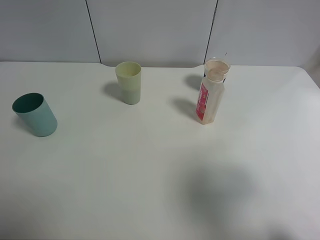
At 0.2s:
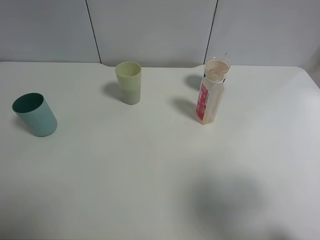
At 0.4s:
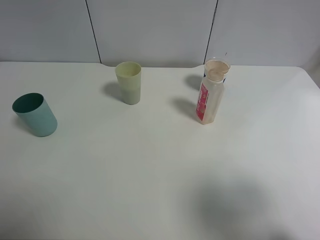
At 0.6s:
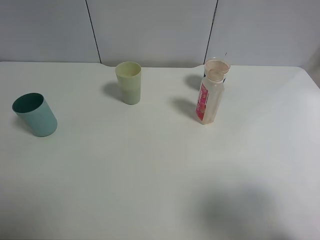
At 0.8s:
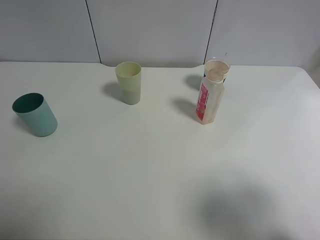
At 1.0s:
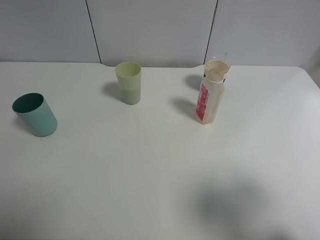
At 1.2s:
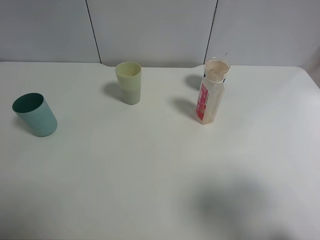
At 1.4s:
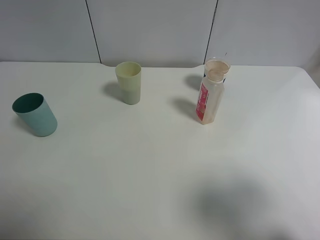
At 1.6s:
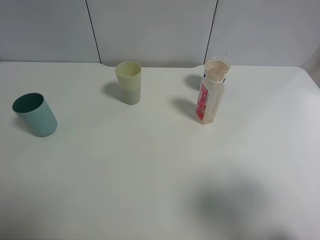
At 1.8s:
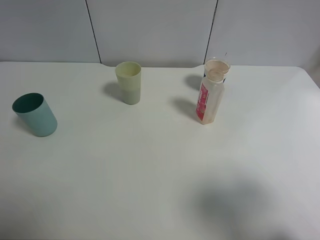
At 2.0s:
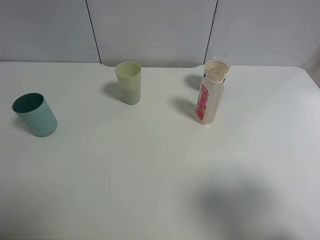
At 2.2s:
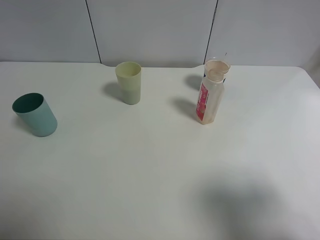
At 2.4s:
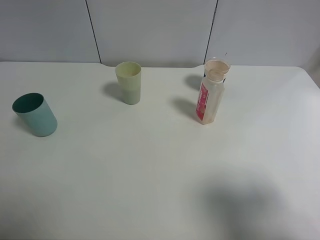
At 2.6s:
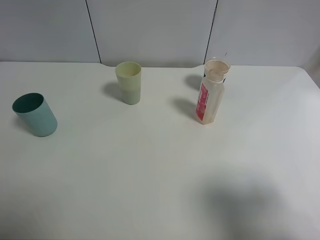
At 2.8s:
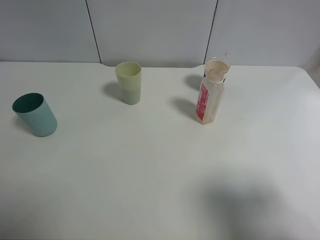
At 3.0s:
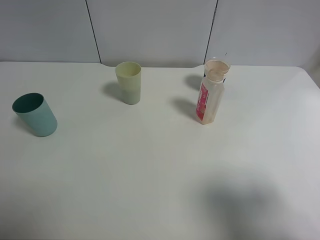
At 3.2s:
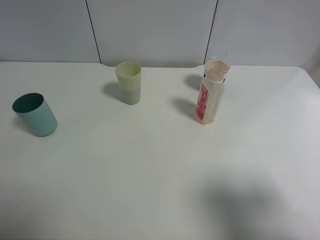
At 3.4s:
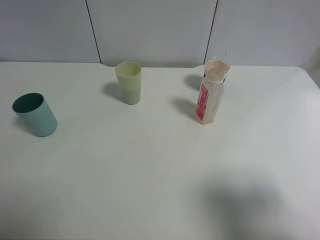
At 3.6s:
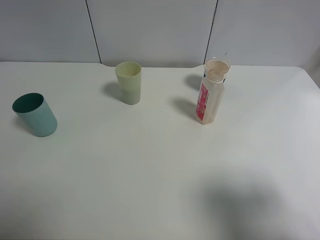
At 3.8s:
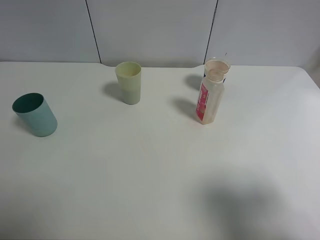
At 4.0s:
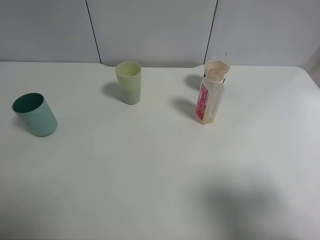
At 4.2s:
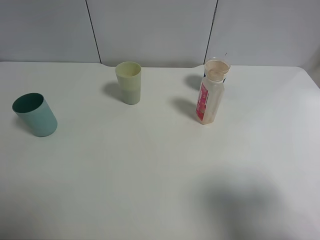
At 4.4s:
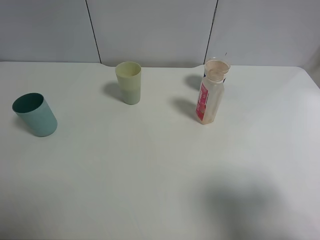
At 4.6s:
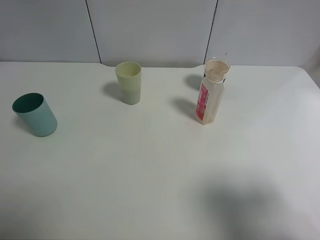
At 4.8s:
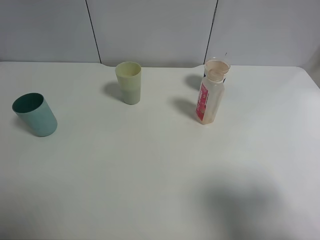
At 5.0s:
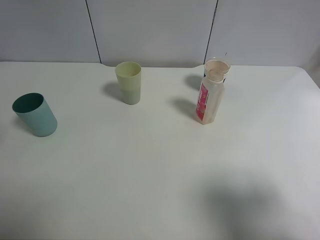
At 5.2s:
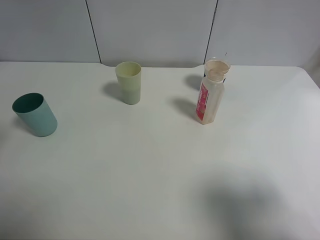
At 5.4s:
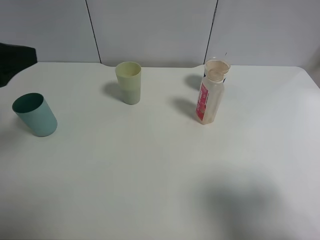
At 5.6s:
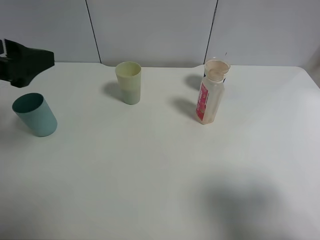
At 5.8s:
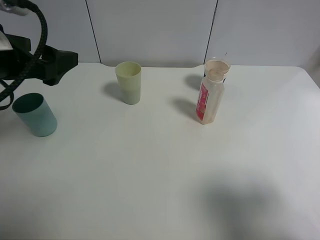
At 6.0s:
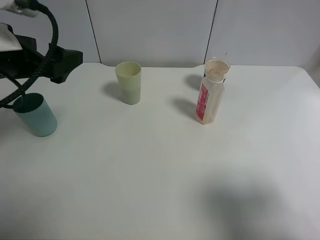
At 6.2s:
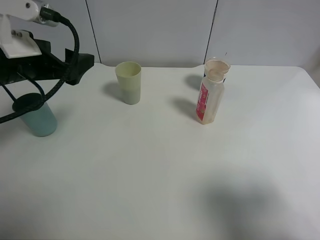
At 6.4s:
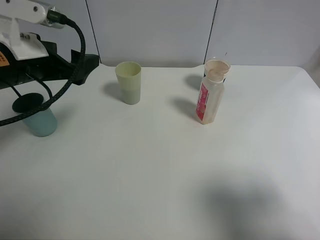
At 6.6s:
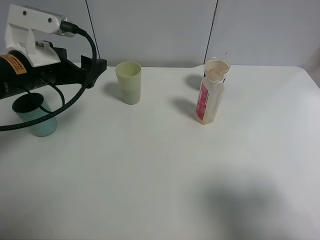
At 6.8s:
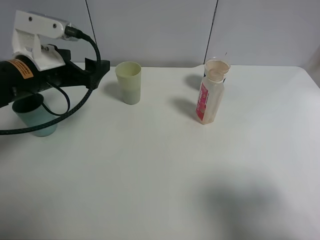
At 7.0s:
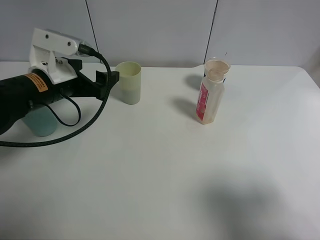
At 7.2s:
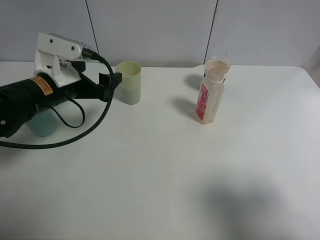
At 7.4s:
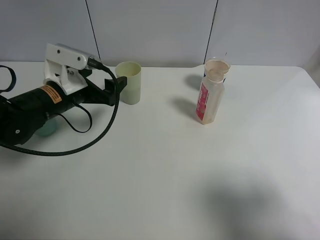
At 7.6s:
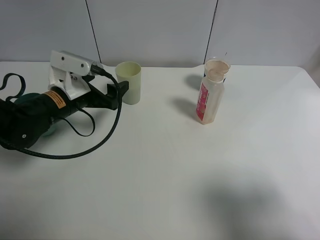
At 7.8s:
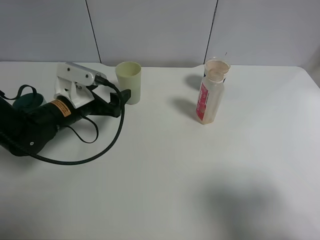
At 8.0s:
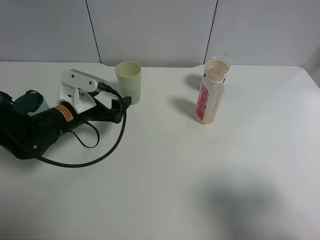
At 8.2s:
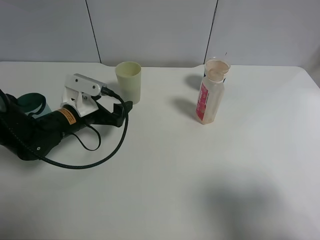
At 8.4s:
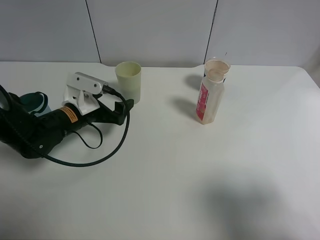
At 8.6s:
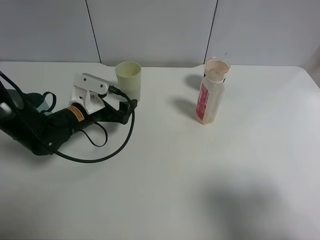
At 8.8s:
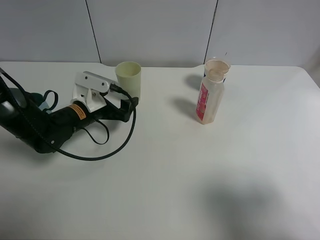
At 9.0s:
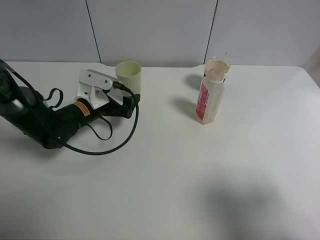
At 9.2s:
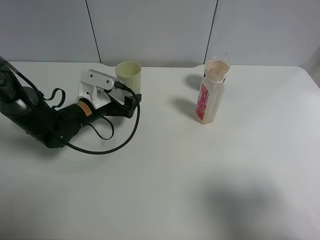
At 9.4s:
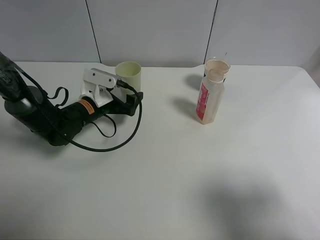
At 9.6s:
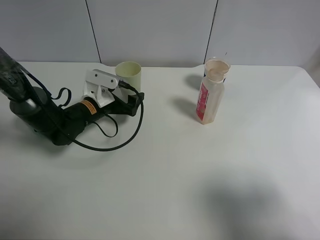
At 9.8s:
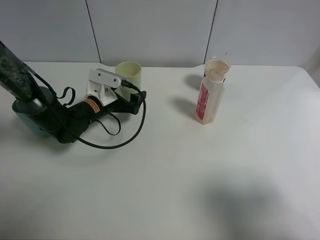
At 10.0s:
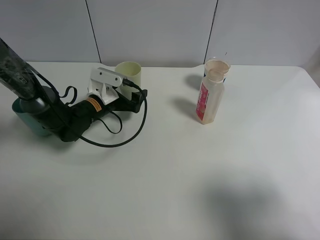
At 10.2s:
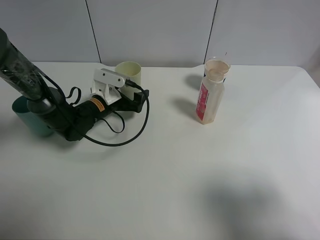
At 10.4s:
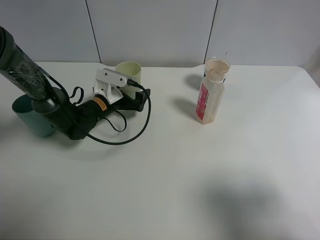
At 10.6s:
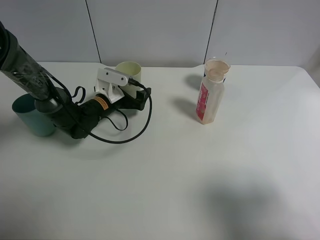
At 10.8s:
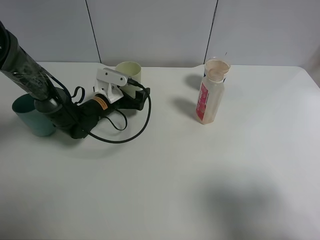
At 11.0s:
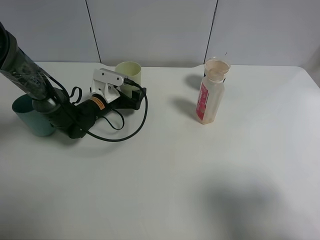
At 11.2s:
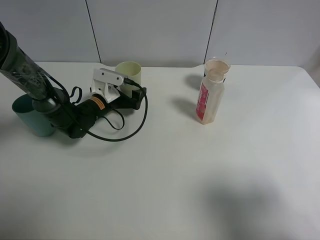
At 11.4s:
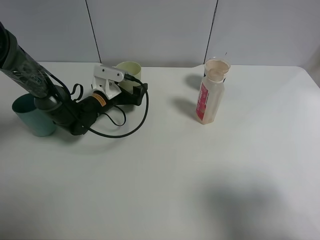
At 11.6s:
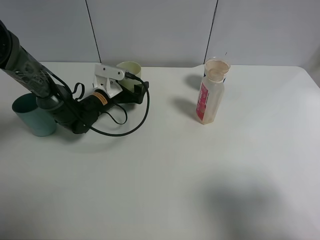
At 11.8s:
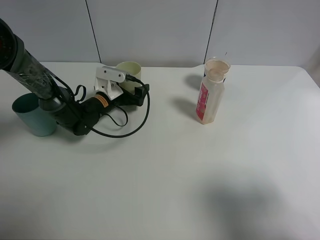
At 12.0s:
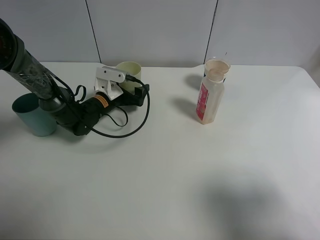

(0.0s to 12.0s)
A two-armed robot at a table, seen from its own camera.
Task of the whole recording: use a clamp to hold the bottle of the drink, pour the beverage into a random cup, then clamp the cup containing the drink and pour the drink into another random cup.
0.0s - 1.6s: The grippers make only small movements.
4.4s - 6.0s: The left gripper travels forward by approximately 20 cm.
6.0s - 7.6s: The left gripper shifts approximately 15 cm downward and forward.
7.6s - 9.0s: The left gripper goes about 5 cm downward.
9.0s - 10.4s: The left gripper ends up some 5 cm from where it was.
10.4s - 12.0s: The grippers make only small movements.

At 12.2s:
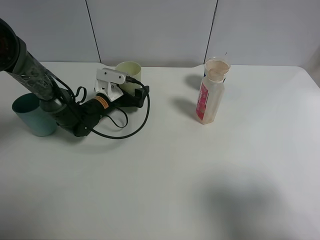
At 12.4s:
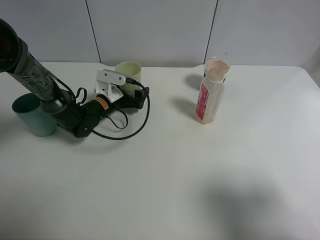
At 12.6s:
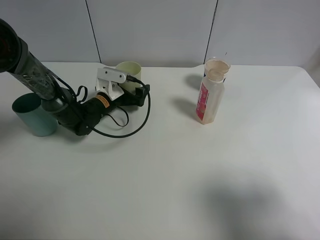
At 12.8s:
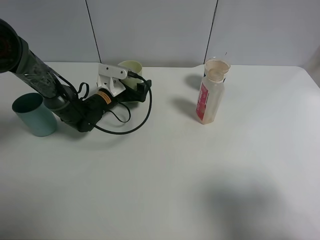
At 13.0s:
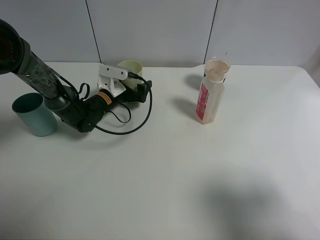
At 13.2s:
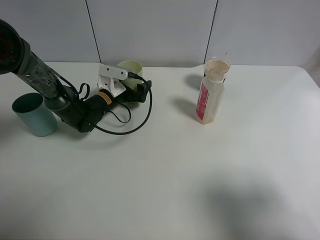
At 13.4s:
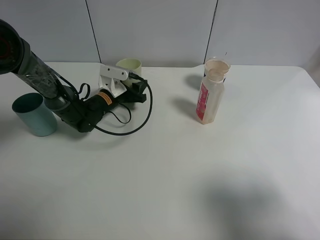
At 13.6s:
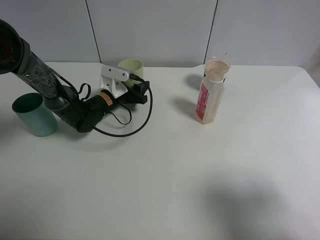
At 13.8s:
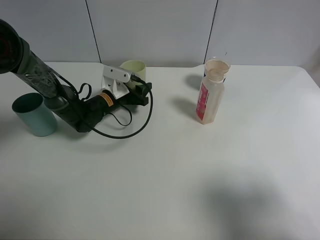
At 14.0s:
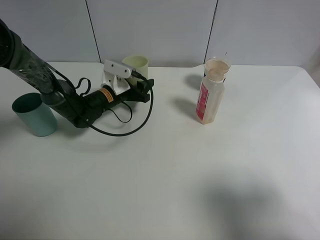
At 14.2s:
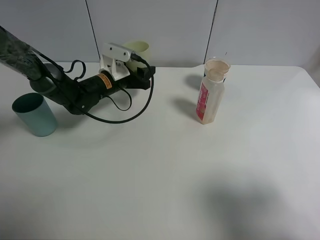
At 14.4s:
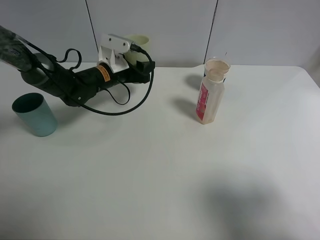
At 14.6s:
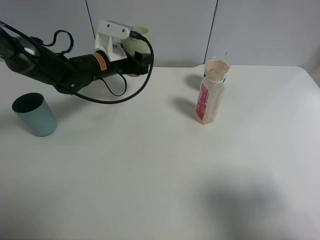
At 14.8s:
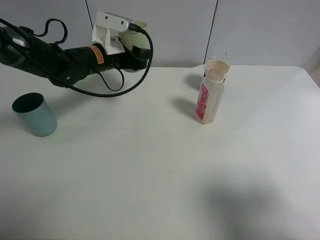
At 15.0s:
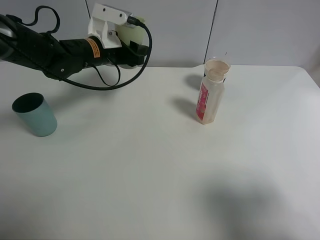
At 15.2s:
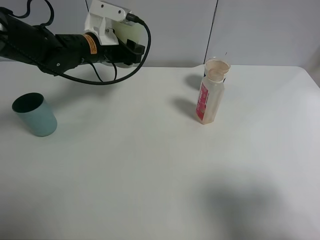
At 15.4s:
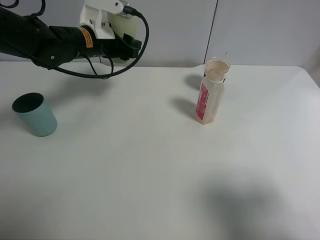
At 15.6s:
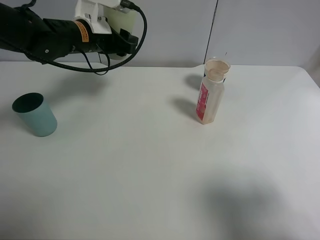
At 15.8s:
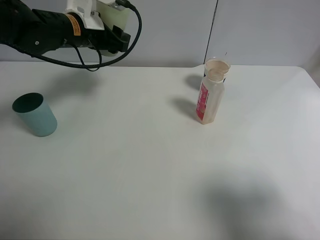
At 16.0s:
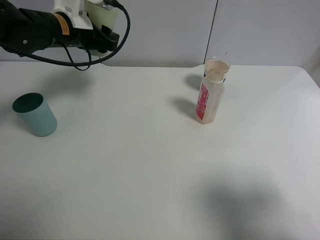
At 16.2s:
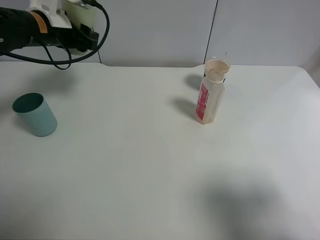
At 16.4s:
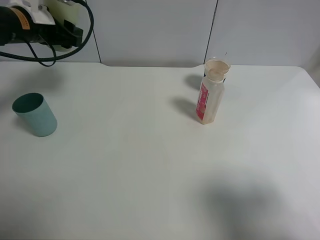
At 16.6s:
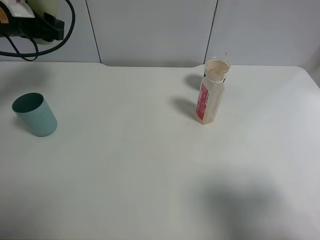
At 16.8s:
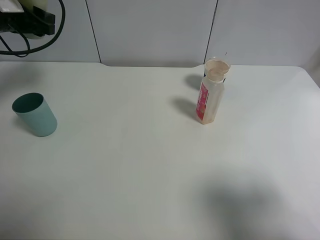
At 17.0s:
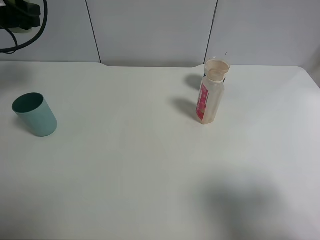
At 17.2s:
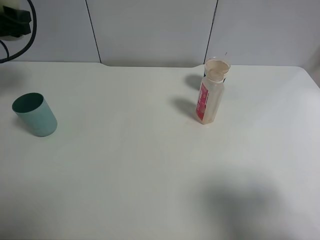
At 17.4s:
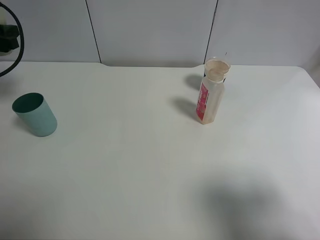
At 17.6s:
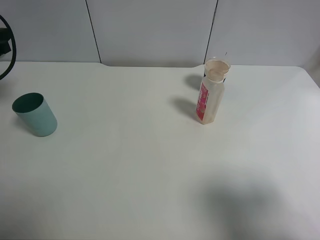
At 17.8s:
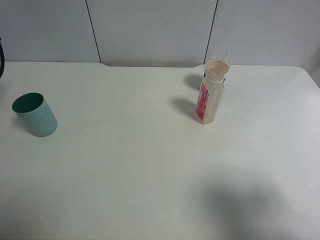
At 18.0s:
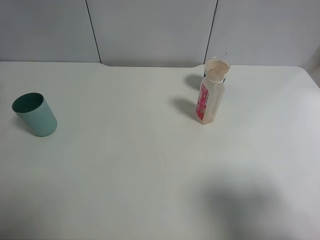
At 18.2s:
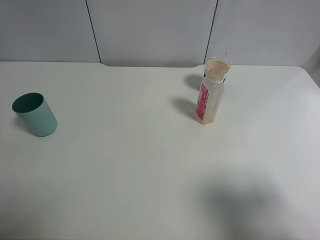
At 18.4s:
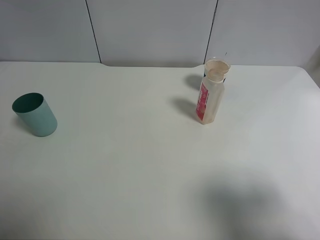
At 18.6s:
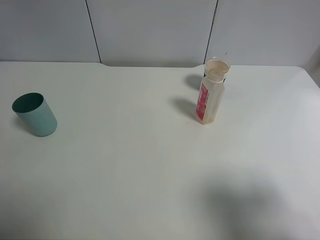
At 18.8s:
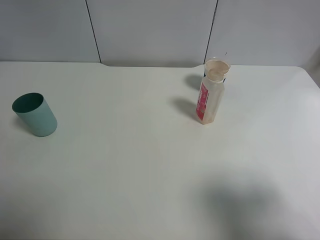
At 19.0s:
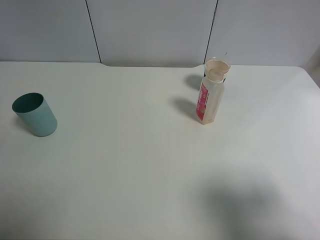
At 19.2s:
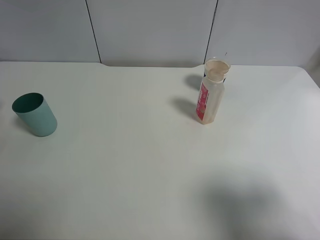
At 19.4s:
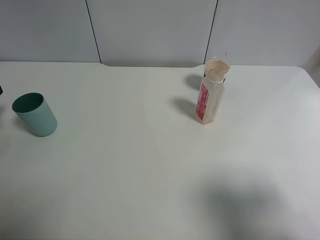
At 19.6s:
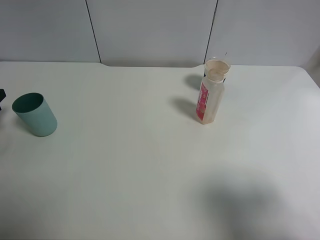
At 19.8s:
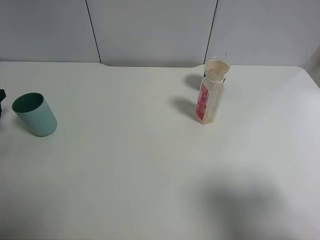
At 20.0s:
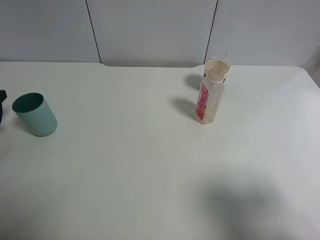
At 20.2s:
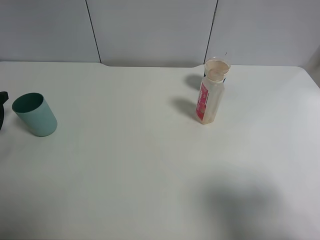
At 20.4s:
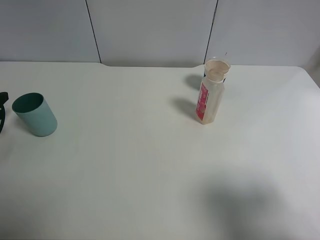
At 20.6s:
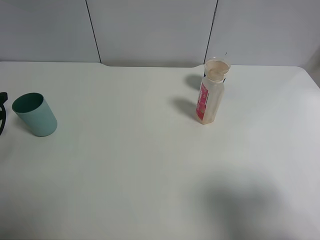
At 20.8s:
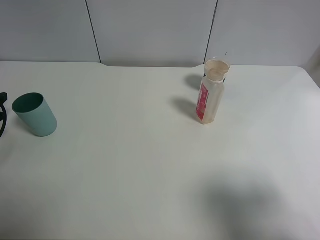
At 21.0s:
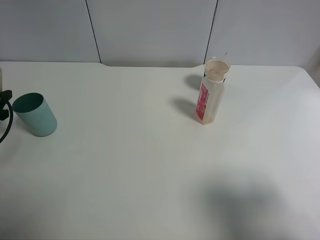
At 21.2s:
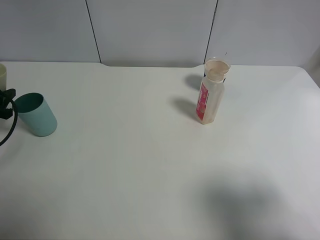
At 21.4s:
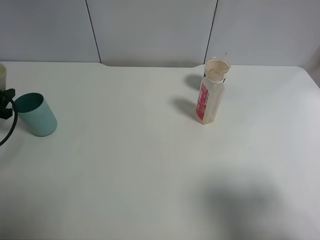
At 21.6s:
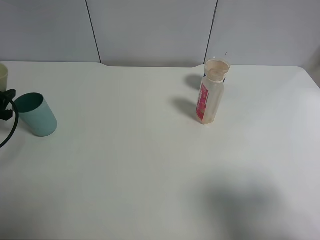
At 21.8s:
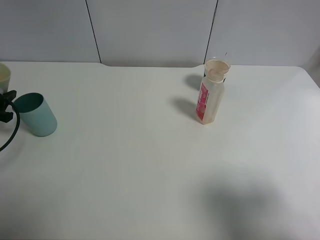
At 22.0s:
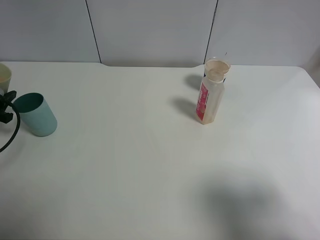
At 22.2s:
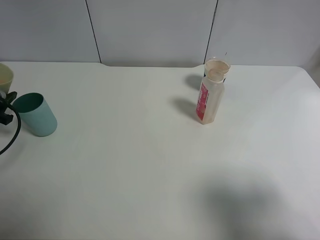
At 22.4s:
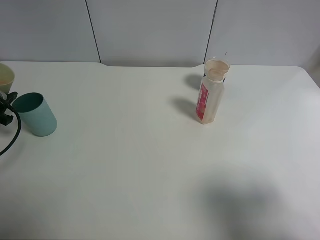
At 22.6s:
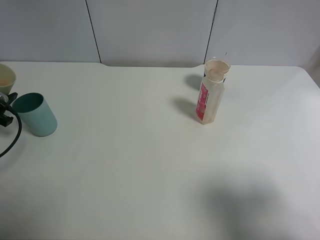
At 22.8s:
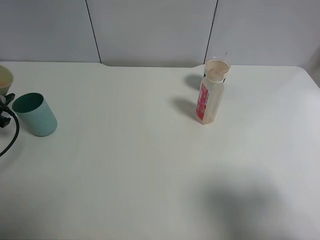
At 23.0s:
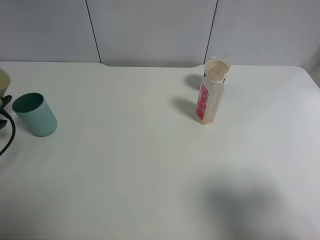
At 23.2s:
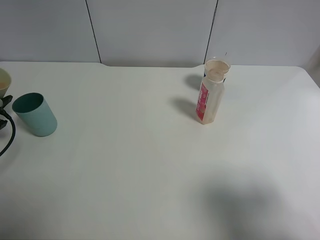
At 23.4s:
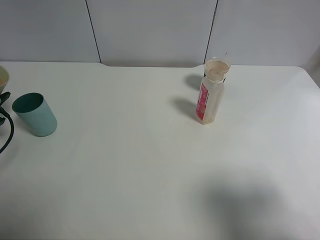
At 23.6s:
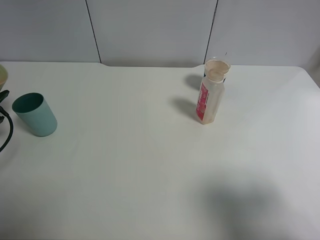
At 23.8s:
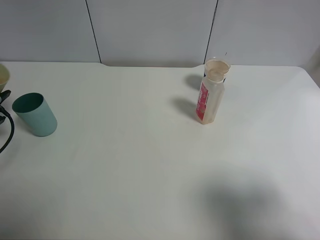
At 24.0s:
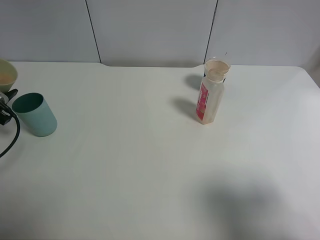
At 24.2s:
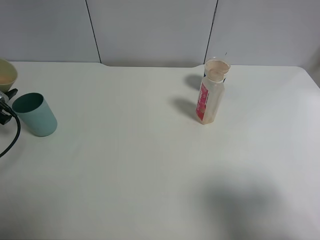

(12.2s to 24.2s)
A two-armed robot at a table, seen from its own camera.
Task of the whole recording: use a clamp to hold the bottle of the drink, pour the beverage into a random cup, then clamp the cup containing the drink and pour the drink into another random cup.
Step, 12.2s - 14.6s: Pick up the green plastic cup bottle with left gripper.
12.2s - 13.8s: The left gripper closes its fingers.
13.8s - 15.2s: The left gripper heads upward, covering some 15 cm.
15.2s - 16.6s: The left gripper shifts about 15 cm to the left and upward.
16.6s - 18.2s: The left gripper shifts roughly 20 cm to the left and backward.
21.2s - 22.6s: The grippers stay close to where they were, moving slightly.
